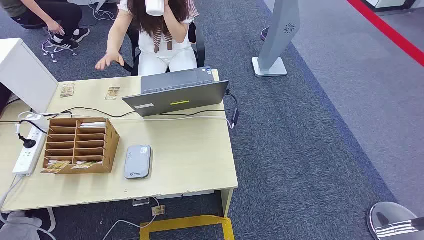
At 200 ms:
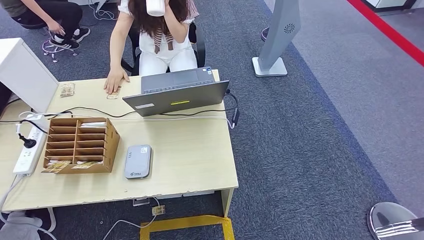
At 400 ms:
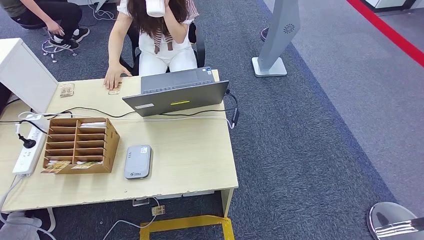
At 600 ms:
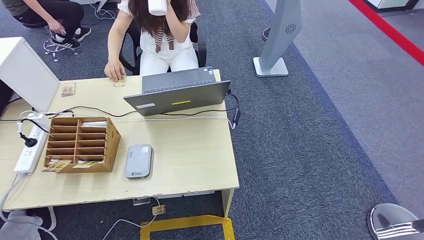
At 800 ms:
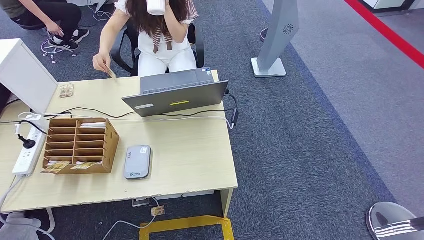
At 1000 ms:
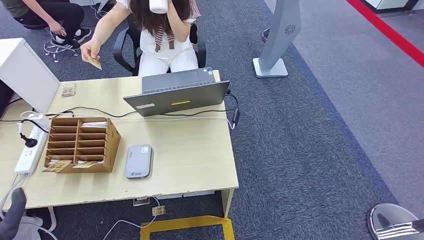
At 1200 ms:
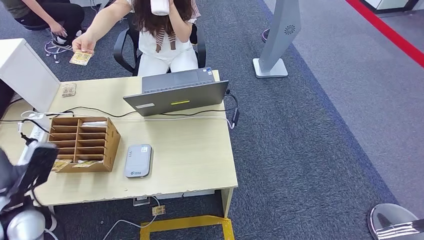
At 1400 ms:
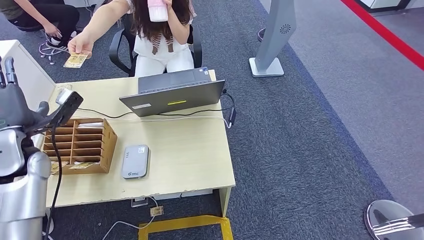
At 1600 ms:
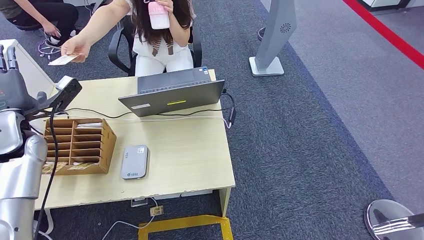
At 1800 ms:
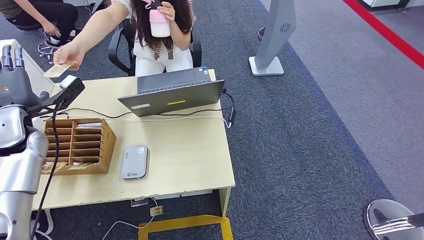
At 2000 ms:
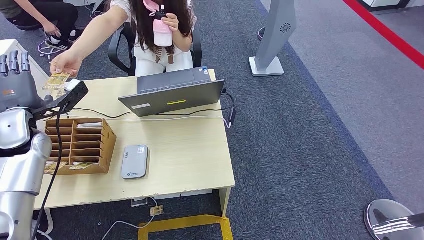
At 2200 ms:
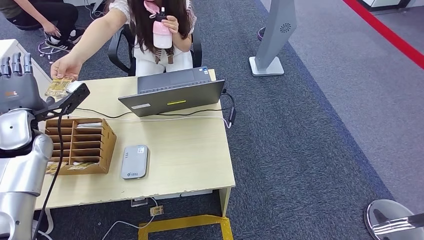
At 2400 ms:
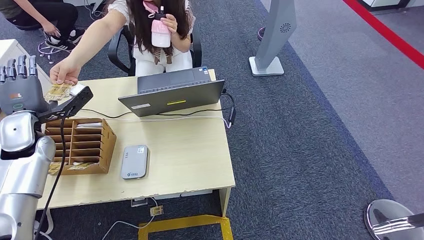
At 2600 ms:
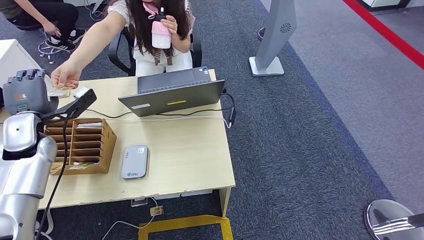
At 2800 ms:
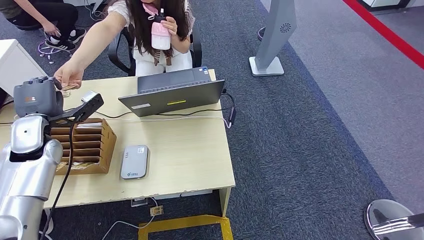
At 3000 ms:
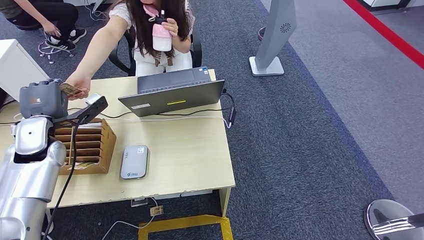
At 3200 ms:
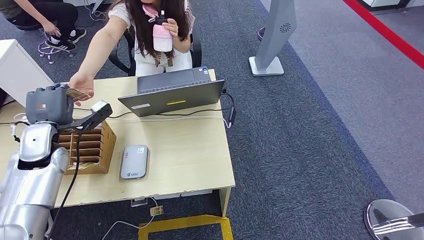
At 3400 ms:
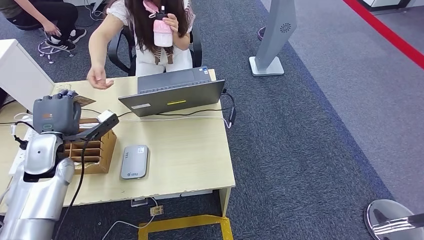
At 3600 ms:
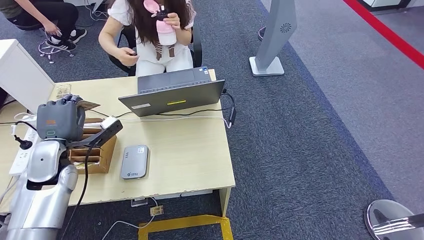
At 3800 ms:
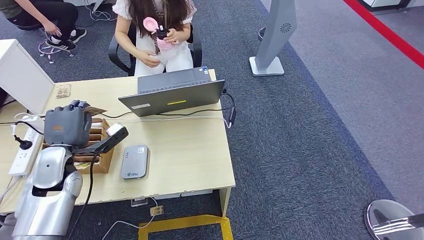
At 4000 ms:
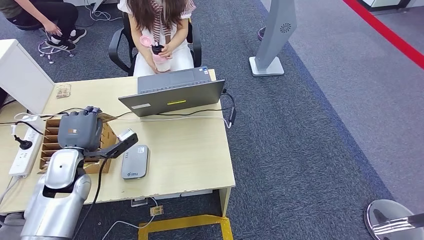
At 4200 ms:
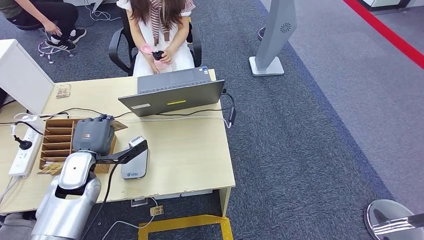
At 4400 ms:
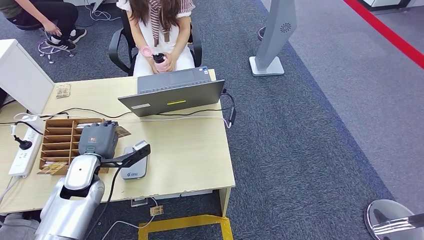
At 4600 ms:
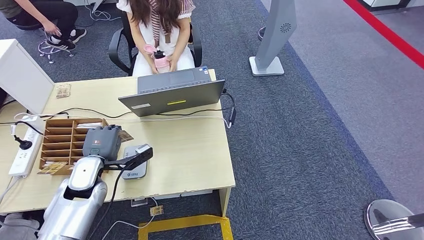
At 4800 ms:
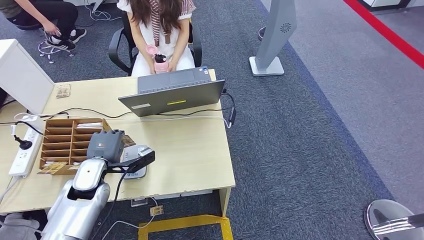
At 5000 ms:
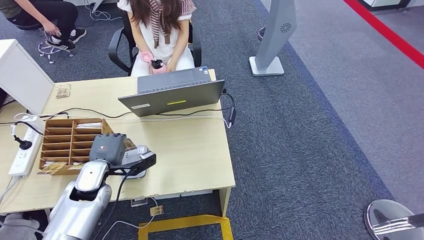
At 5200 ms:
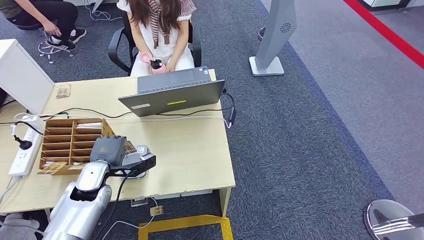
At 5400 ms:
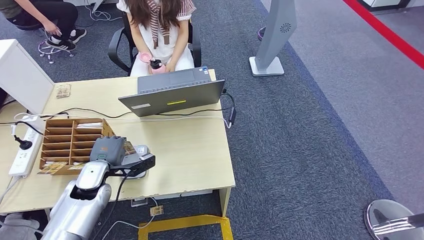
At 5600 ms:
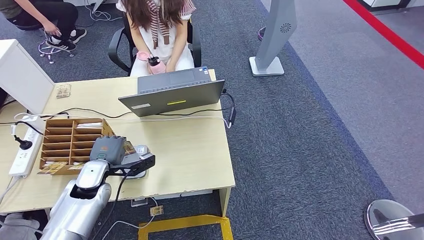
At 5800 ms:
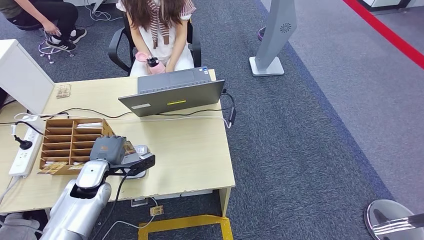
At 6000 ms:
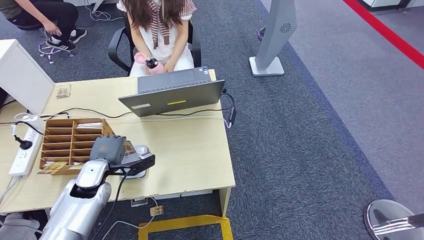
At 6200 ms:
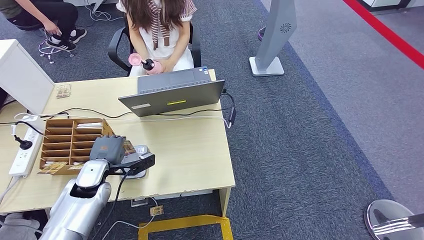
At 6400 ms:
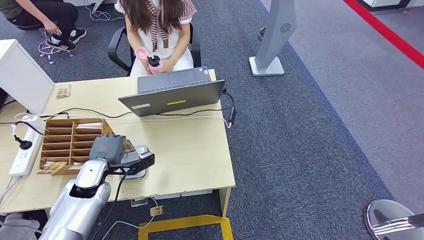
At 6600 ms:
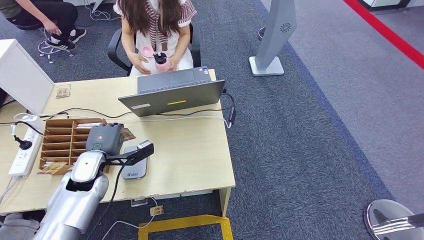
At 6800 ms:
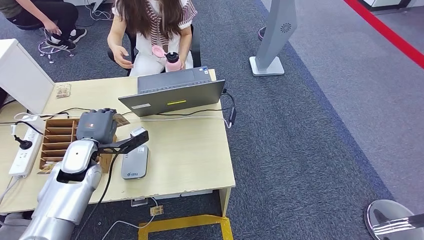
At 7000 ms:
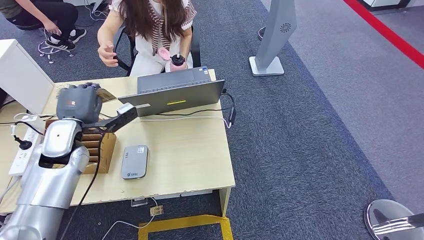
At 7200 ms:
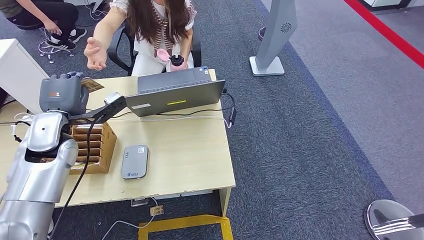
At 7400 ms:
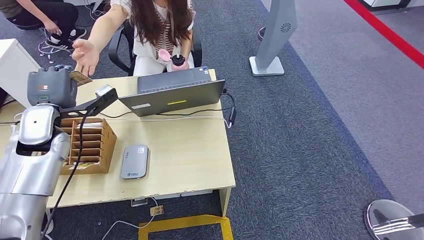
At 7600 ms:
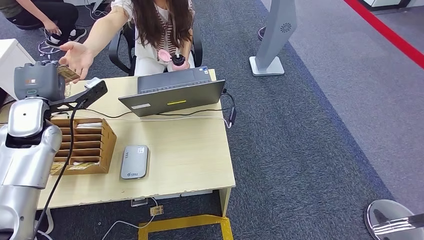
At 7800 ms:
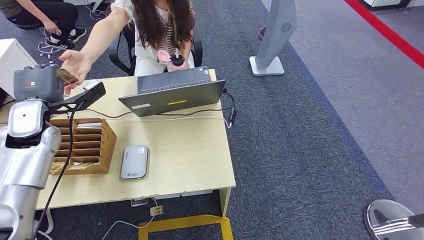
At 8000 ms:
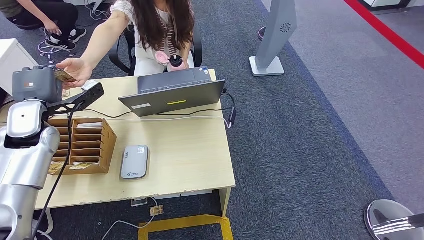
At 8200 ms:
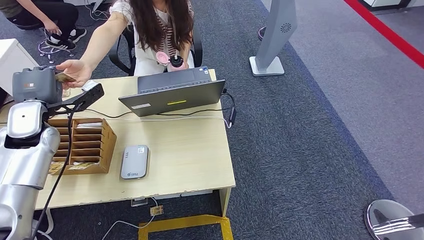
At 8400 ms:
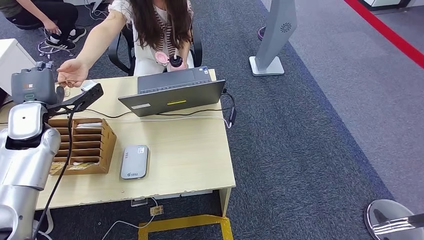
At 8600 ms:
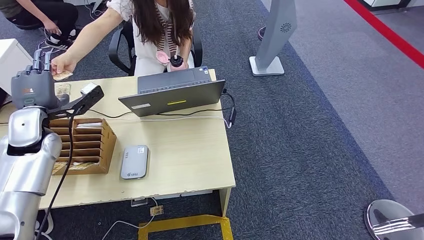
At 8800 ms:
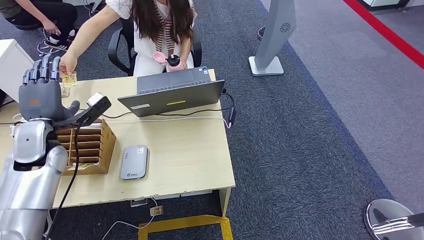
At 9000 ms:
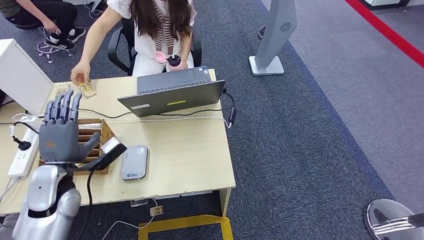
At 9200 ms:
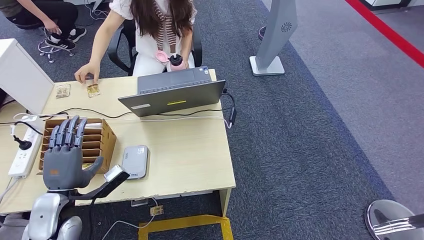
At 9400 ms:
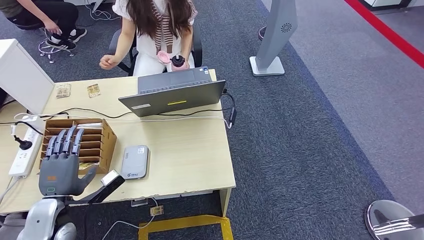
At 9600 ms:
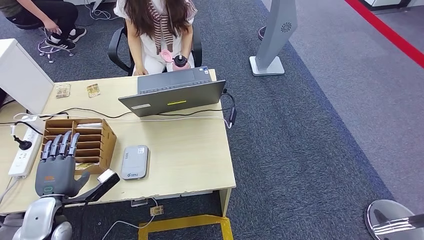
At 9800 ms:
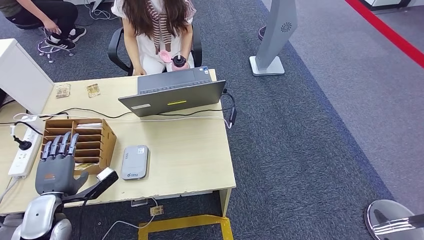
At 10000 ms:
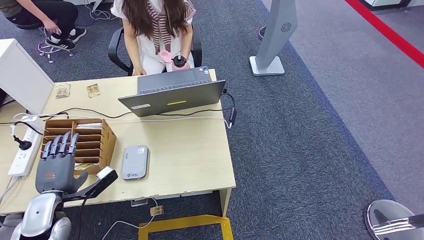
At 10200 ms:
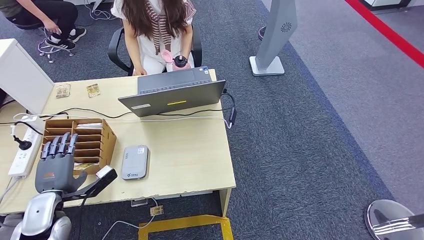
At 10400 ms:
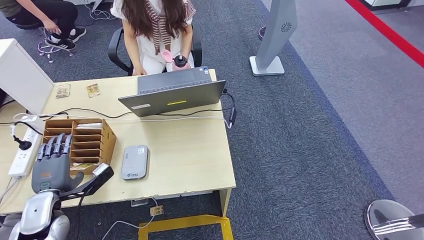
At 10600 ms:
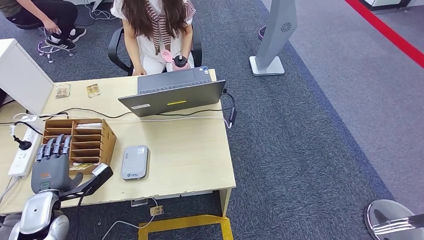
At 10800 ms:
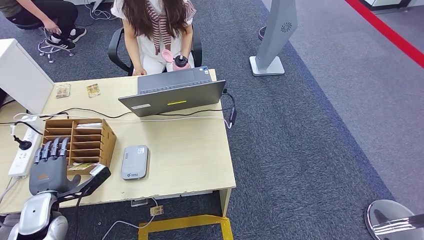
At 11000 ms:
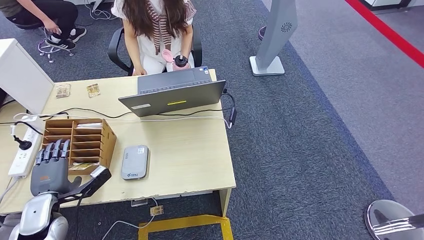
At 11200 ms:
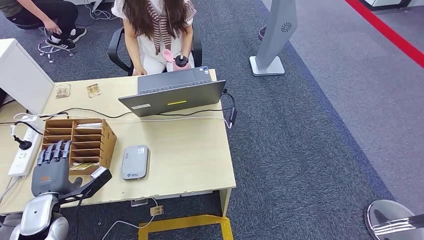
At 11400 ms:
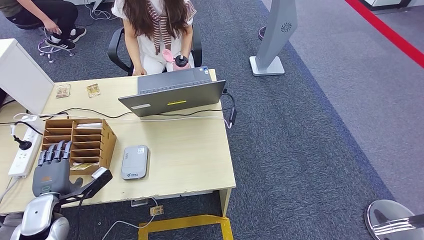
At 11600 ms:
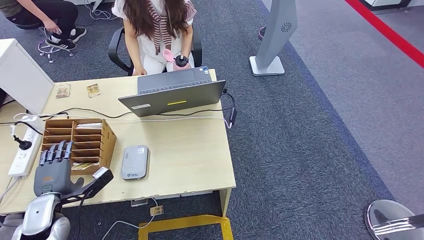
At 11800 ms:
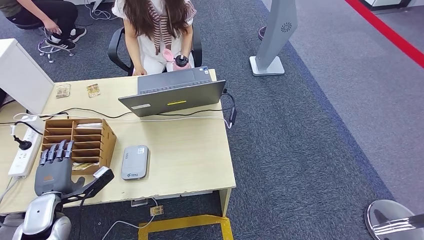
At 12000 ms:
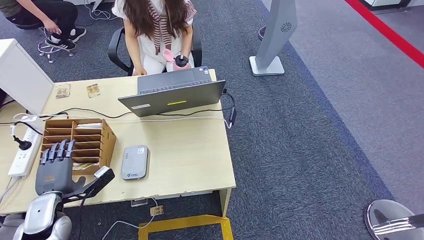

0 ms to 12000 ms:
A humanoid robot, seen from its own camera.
Step, 0 ms to 2800 ms: Take the ID card from the person's hand.
Step, 3000 ms to 5600 ms: Place the ID card on the card reader.
Step, 5800 ms to 8000 ms: Hand the ID card to the person.
1600 ms to 3000 ms: The hands stay close to where they were, moving slightly.
4400 ms to 6000 ms: The hands move only a little.
7600 ms to 9000 ms: The left hand moves backward and downward, about 15 cm.
9000 ms to 10400 ms: The left hand is displaced downward and to the left by roughly 10 cm.
10400 ms to 12000 ms: The hands stay close to where they were, moving slightly.

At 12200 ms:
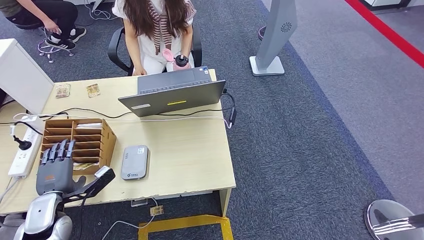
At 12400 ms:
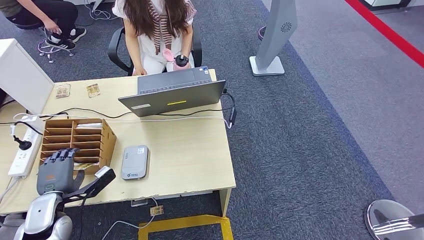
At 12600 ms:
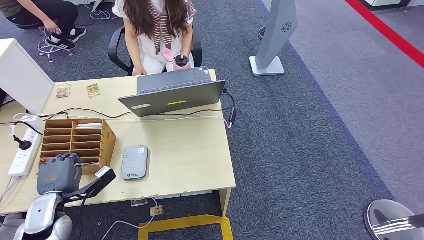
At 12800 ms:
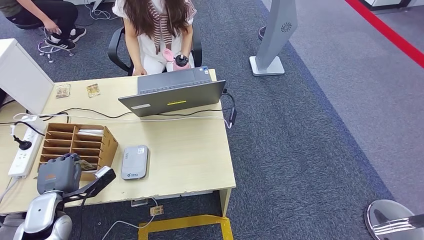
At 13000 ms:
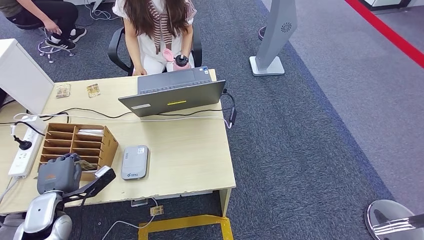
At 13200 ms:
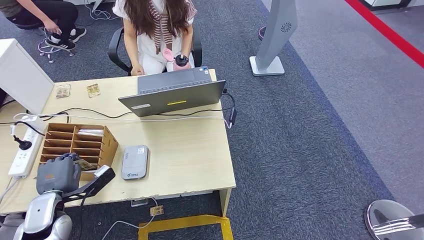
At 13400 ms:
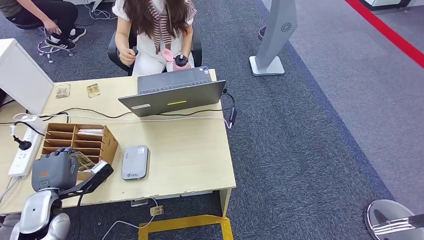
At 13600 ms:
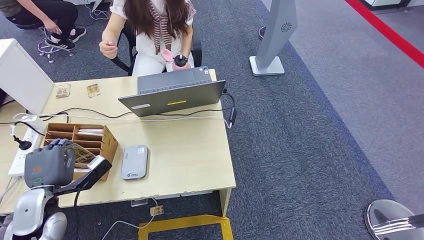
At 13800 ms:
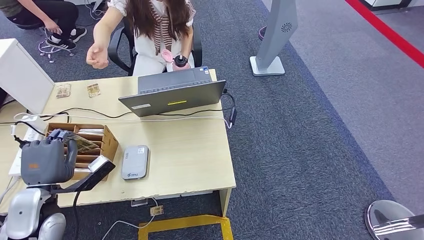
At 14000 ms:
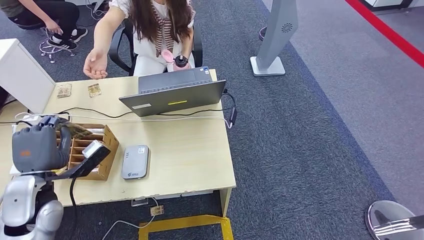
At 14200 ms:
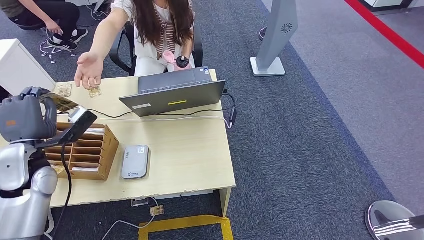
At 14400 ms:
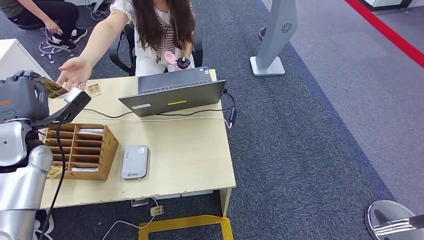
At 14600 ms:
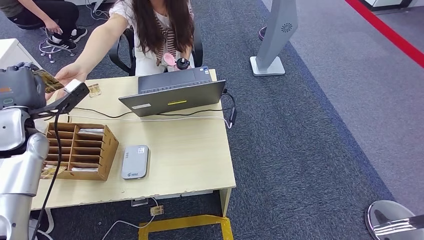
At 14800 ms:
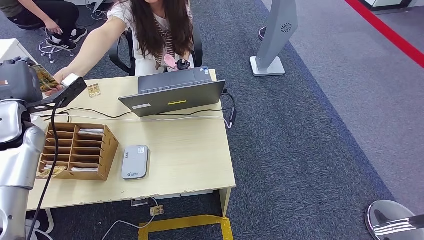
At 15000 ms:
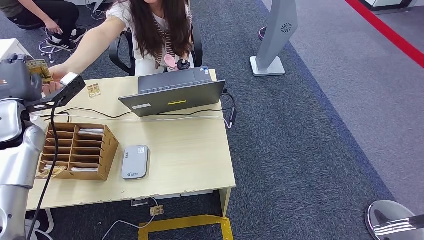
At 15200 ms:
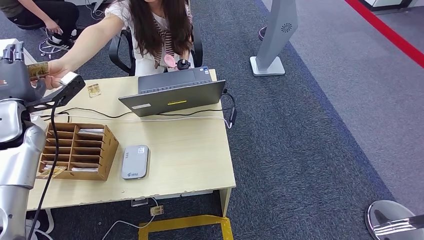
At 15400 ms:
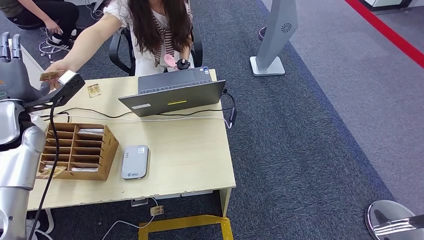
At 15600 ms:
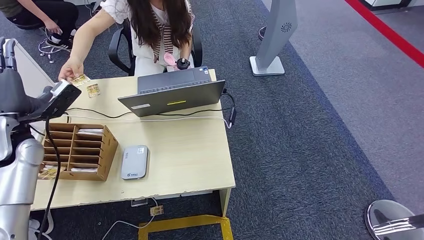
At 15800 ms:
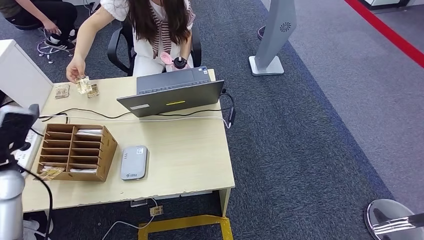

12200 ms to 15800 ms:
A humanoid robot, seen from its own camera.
Step, 13800 ms to 15800 ms: Hand the room key to the person.
12200 ms to 14000 ms: The left hand travels upward by approximately 10 cm.
